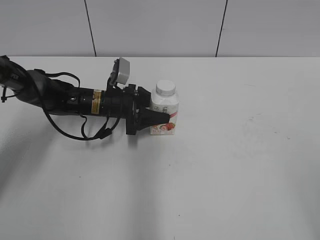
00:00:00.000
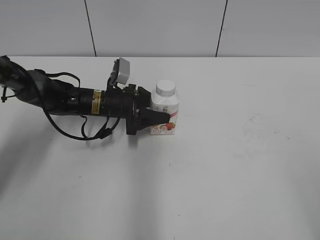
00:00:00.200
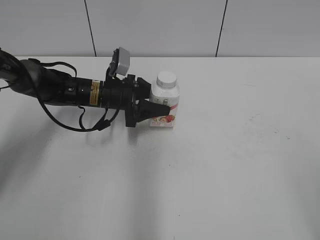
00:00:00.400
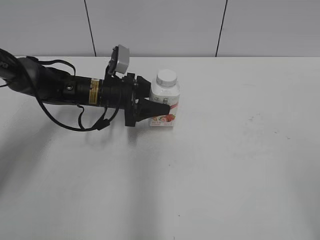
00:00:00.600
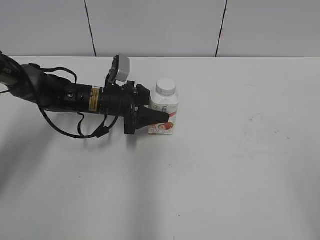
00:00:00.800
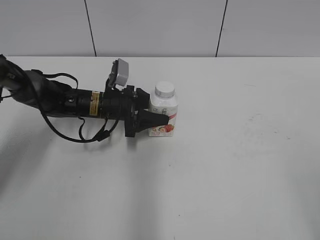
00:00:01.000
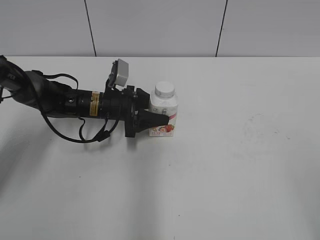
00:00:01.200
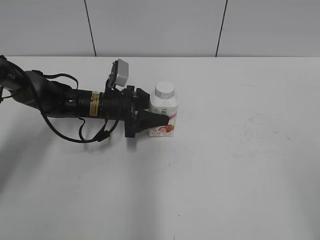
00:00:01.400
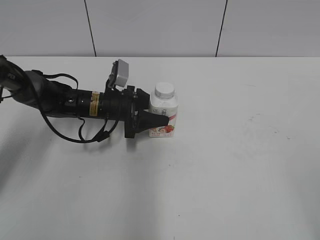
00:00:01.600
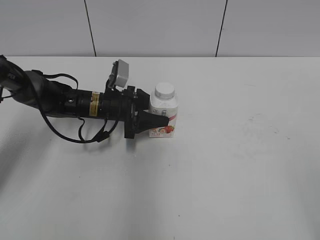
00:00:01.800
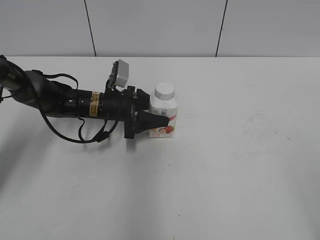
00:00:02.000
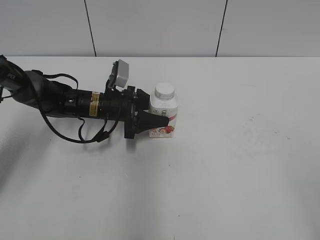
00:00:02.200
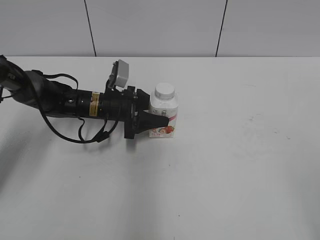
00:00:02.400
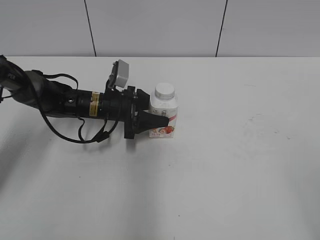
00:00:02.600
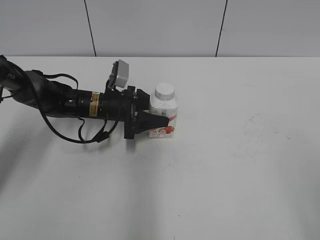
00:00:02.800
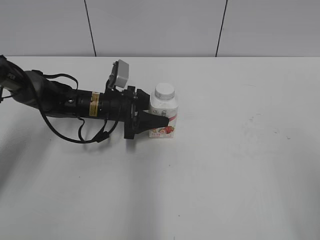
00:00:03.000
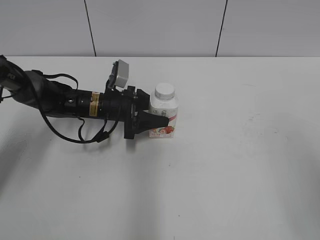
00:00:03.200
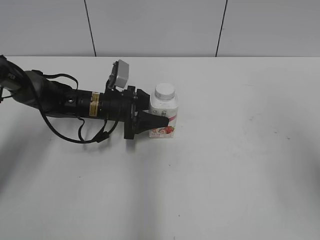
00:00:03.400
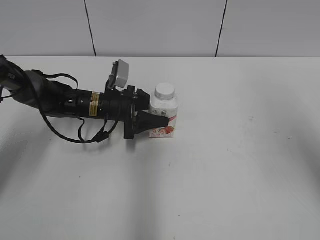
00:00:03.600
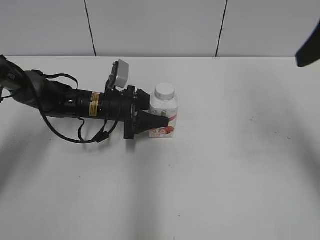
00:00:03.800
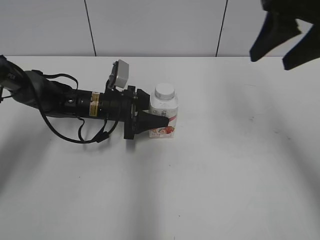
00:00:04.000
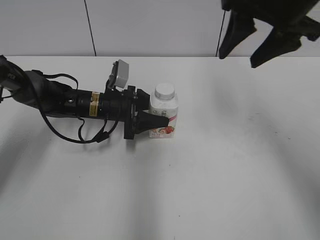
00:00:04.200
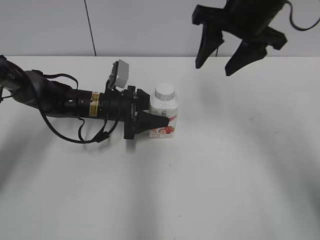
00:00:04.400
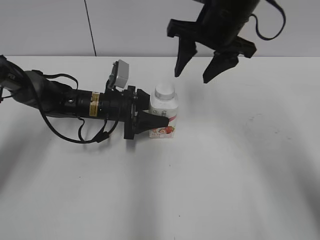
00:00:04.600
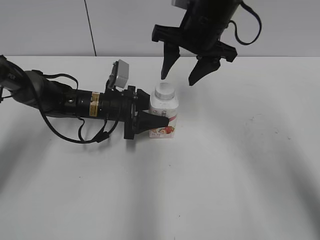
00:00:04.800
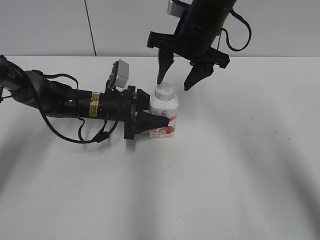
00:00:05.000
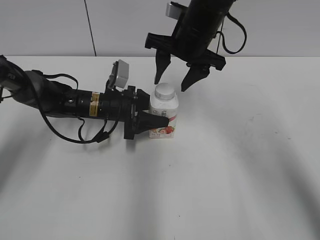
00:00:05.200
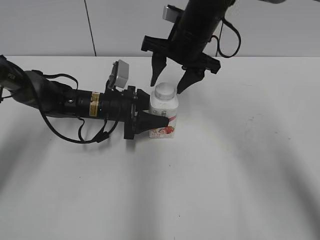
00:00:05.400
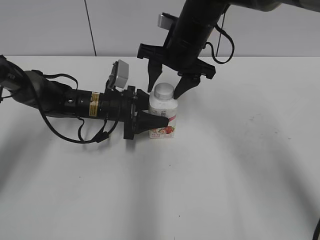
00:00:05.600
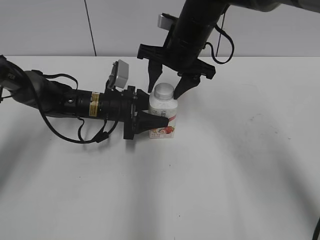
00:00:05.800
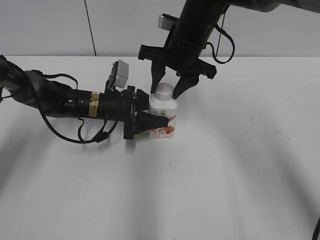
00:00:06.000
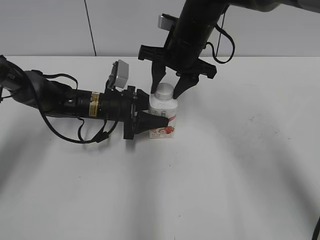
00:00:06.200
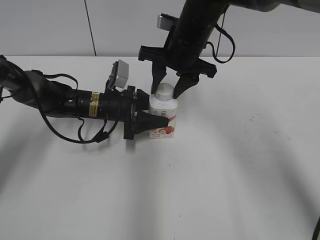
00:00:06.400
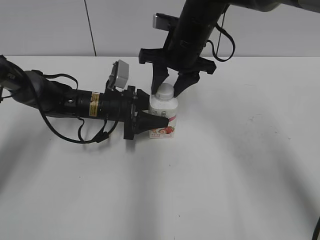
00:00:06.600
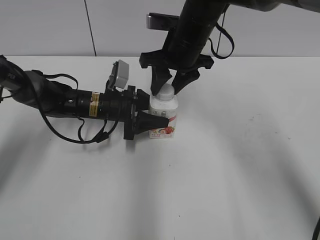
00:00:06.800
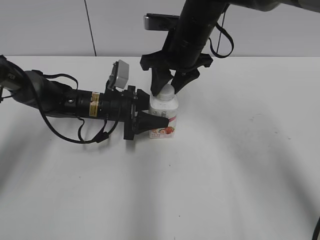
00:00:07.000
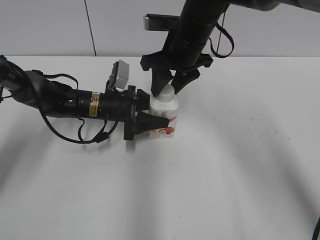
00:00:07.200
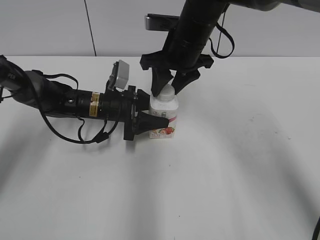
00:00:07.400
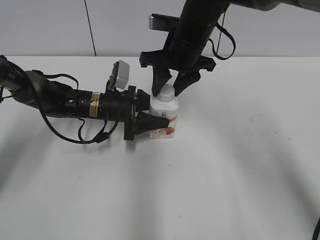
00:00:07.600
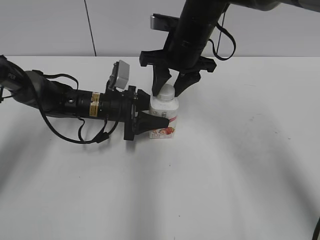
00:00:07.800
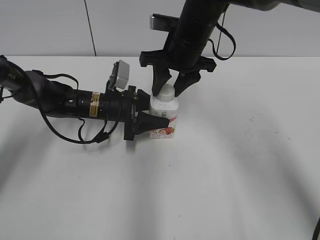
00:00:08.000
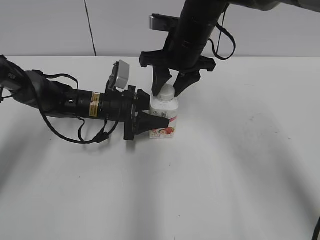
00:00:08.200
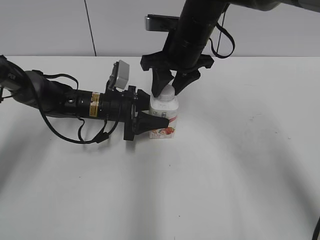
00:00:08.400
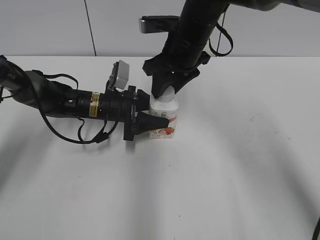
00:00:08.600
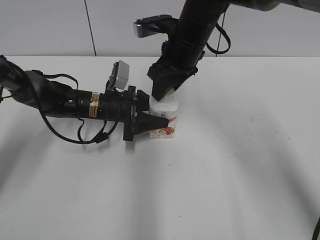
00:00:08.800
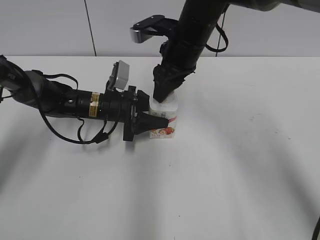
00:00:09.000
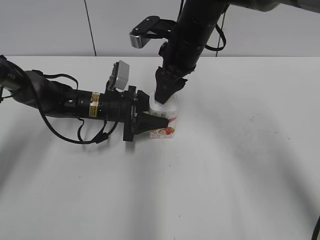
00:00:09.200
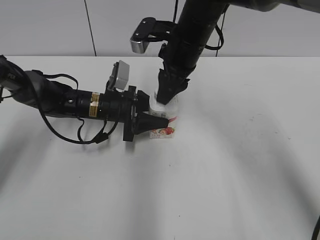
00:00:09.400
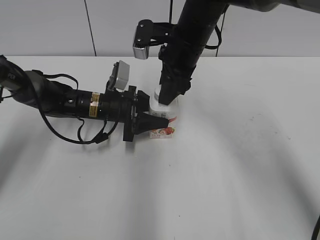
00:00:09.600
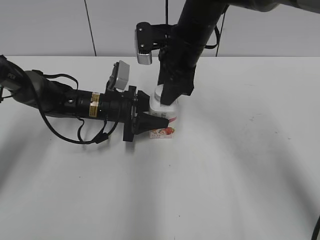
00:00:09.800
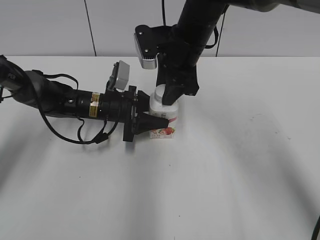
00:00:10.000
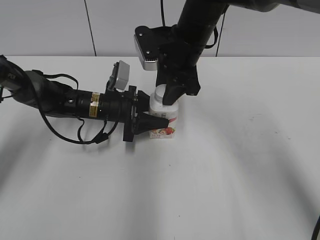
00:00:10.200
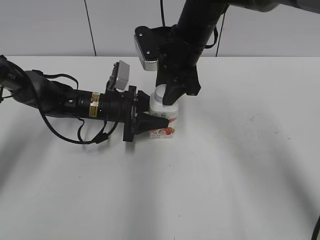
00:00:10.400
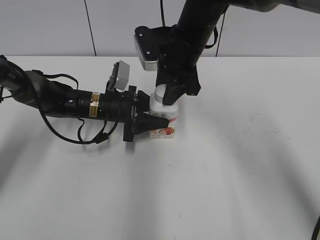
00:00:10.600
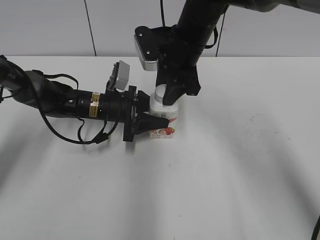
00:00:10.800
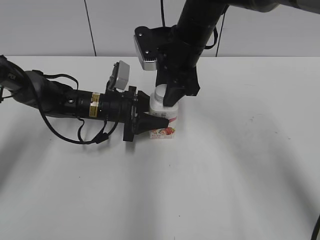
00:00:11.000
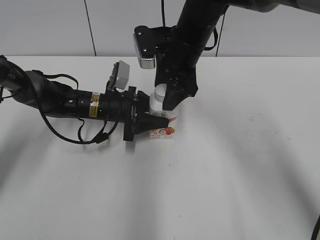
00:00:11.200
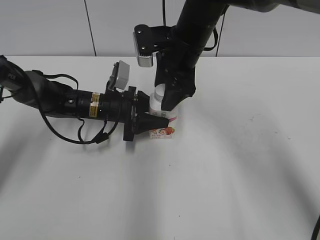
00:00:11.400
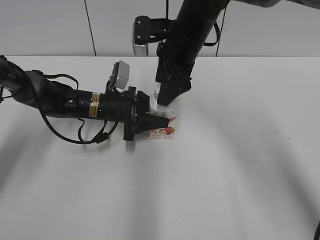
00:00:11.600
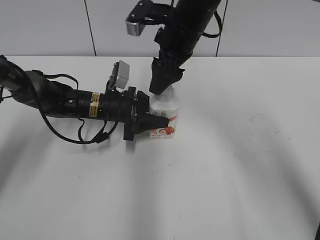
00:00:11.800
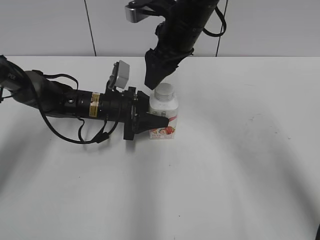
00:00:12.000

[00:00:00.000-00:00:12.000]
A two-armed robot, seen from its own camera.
Step, 00:00:00.000 to 00:00:01.600: Move the Yili Changqing from right to left.
00:00:00.000 to 00:00:01.600: The grippers move only a little.
00:00:03.000 to 00:00:04.400: The right gripper moves forward and to the left, some 35 cm, and closes its fingers.
00:00:04.400 to 00:00:06.000: The right gripper travels downward and to the left by about 10 cm, and closes.
00:00:10.400 to 00:00:12.000: The right gripper opens.

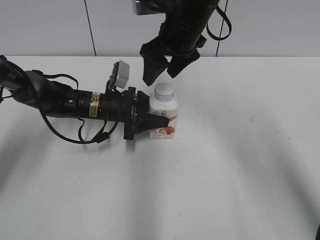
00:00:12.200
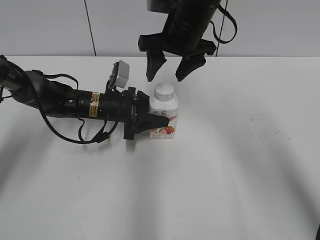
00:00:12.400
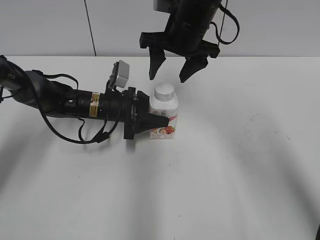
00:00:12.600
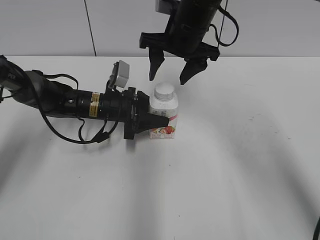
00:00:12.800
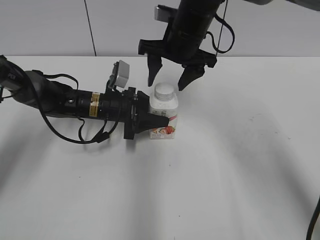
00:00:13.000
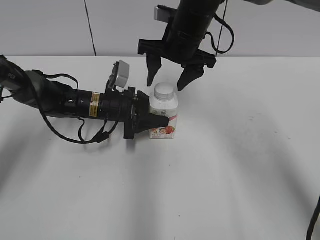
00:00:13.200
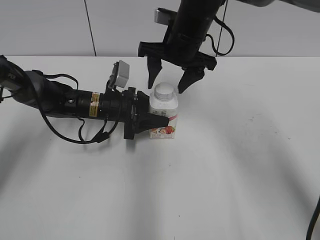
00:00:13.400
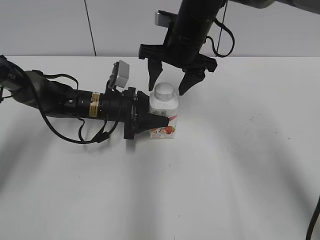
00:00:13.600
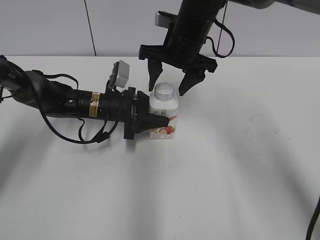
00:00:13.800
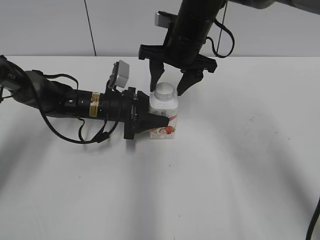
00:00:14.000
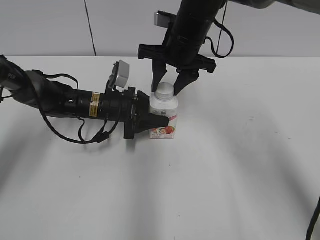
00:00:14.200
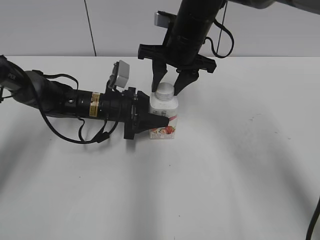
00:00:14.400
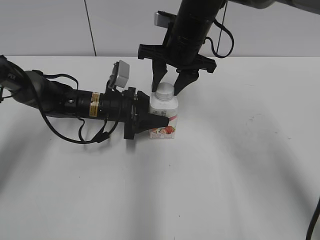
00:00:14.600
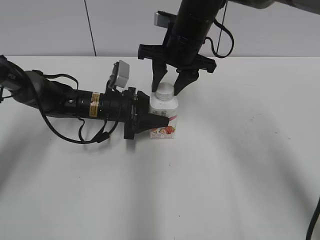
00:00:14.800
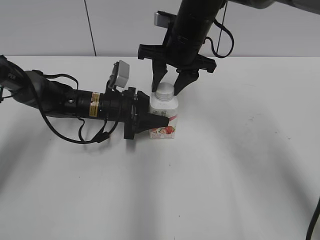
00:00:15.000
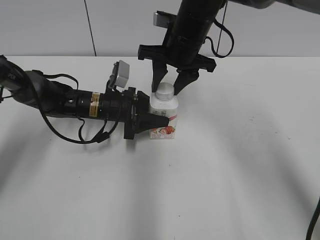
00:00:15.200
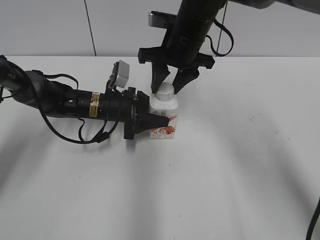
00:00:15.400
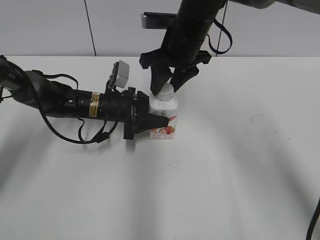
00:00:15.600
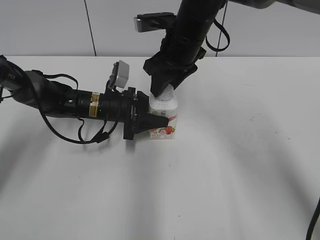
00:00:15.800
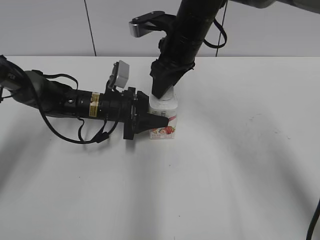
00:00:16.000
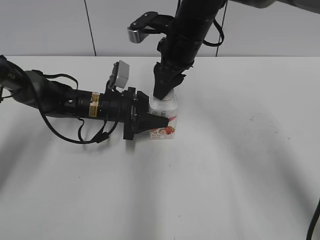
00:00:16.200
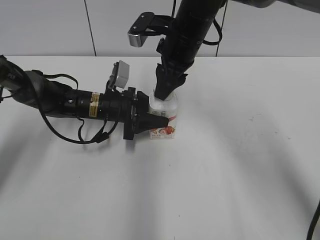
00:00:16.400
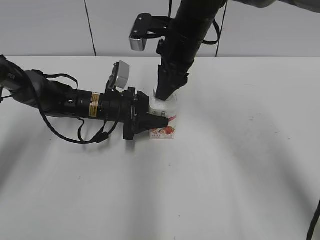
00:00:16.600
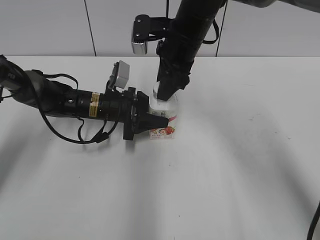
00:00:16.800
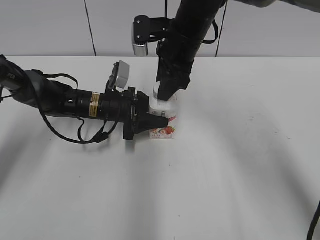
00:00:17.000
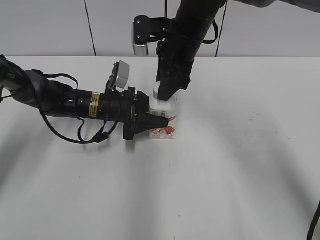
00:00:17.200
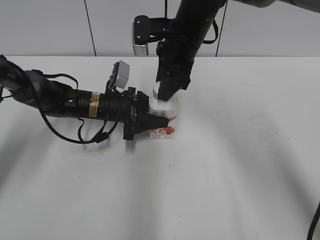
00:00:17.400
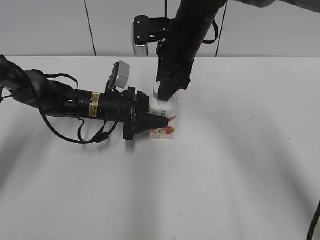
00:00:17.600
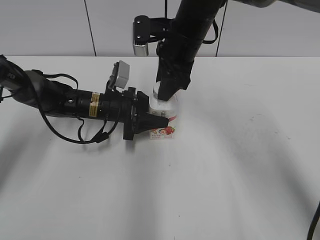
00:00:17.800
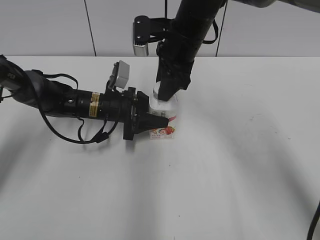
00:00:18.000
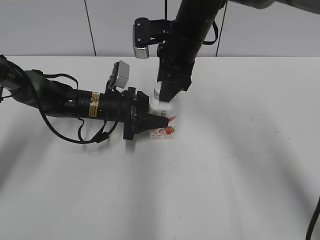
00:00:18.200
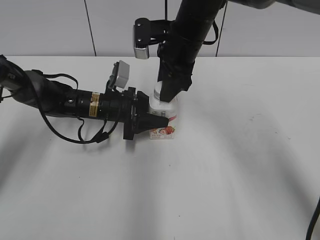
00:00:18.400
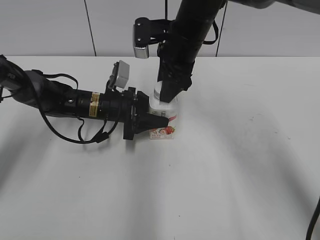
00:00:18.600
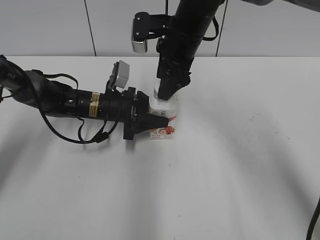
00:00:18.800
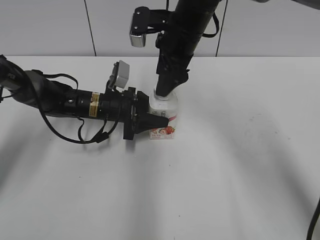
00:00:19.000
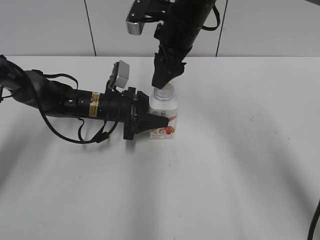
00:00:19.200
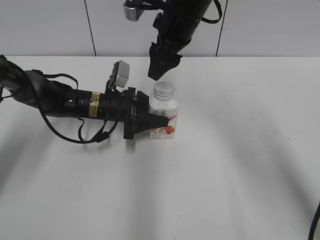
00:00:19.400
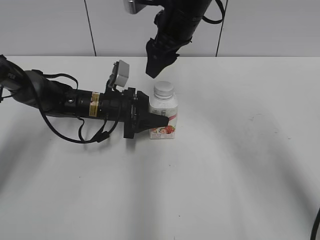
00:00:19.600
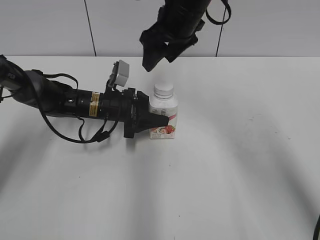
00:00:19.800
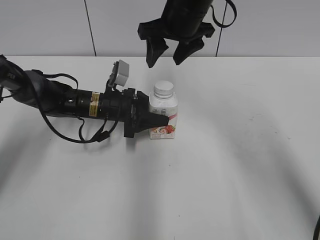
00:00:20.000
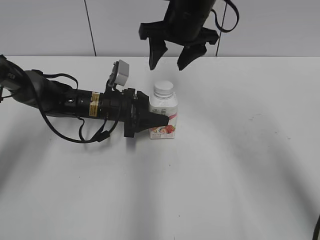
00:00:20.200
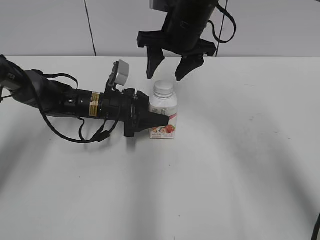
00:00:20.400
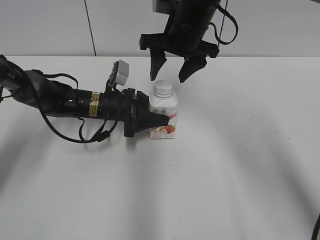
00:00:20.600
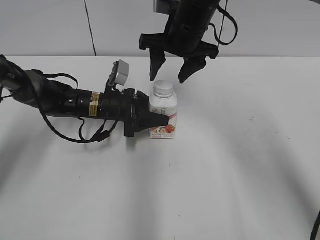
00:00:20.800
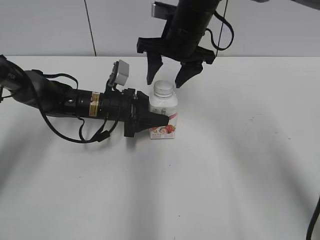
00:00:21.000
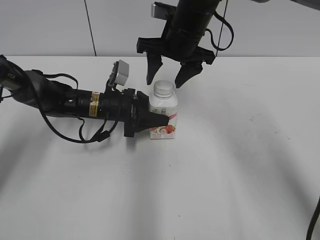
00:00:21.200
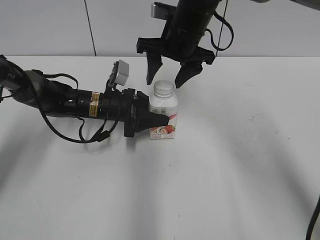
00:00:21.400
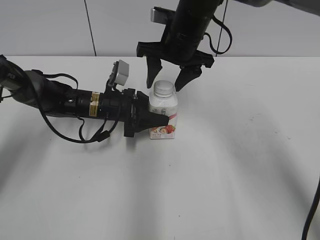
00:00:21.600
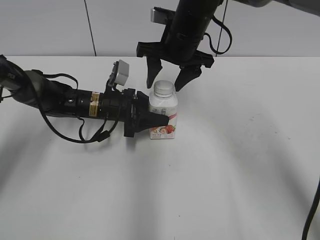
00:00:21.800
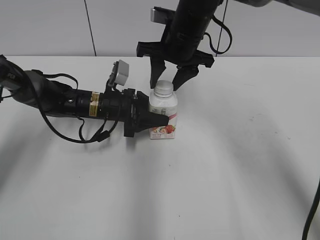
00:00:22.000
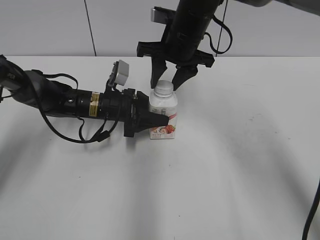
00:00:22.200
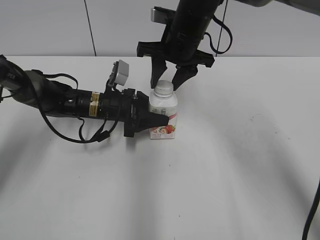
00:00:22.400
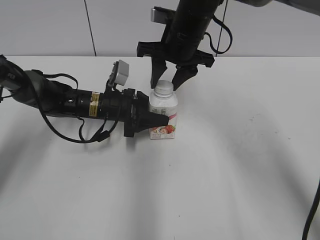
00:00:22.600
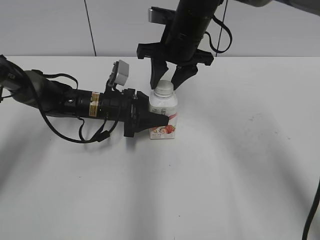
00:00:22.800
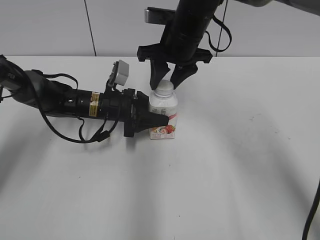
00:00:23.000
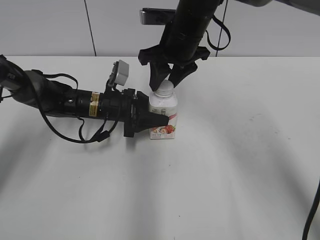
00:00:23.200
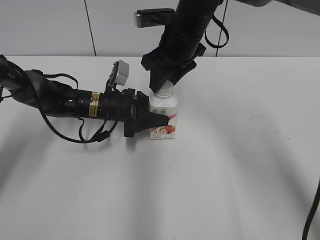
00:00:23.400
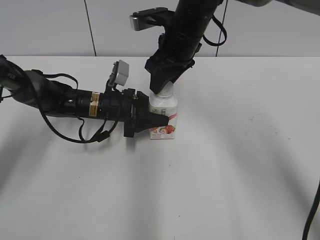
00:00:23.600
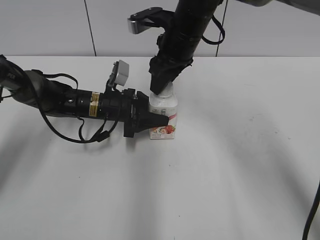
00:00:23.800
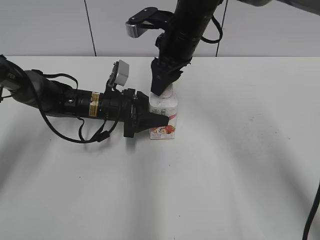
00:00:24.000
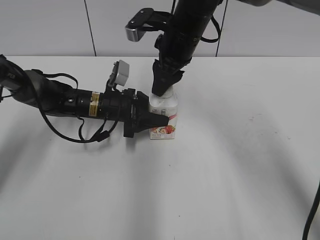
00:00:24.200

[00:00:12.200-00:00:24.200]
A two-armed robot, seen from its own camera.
00:00:13.800 to 00:00:15.200: The right gripper closes up.
00:00:16.600 to 00:00:18.200: There are only small adjustments of the grippers.
00:00:18.200 to 00:00:19.800: The right gripper opens up.
00:00:21.200 to 00:00:22.600: The right gripper closes up.
